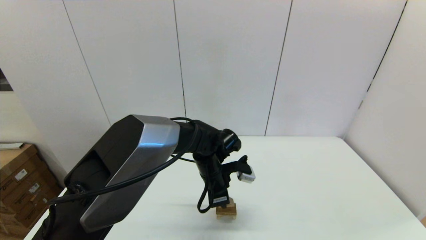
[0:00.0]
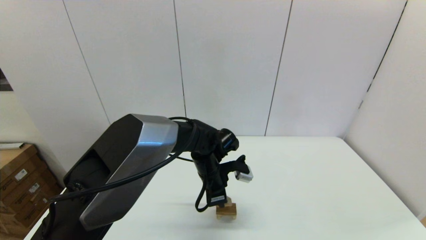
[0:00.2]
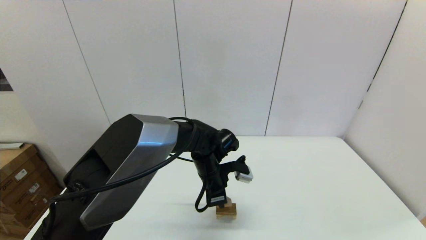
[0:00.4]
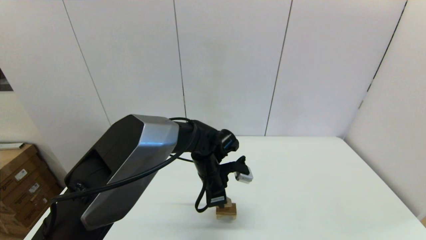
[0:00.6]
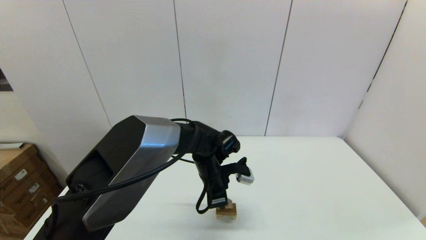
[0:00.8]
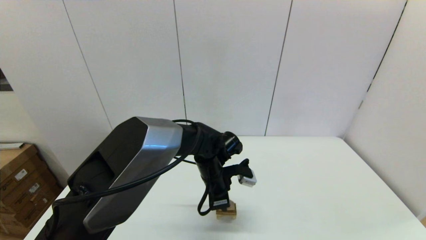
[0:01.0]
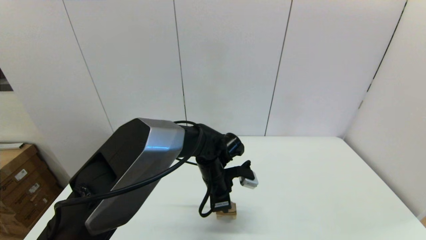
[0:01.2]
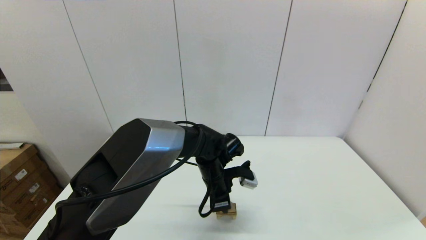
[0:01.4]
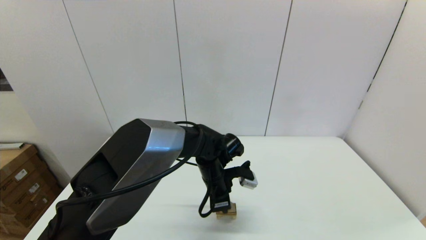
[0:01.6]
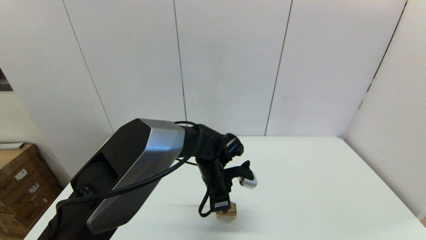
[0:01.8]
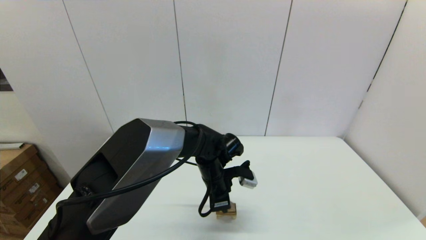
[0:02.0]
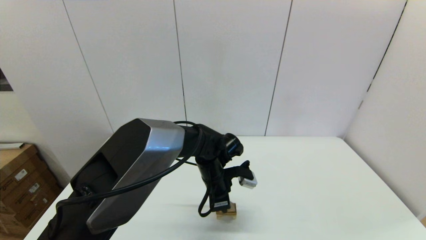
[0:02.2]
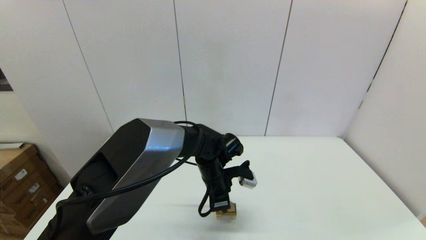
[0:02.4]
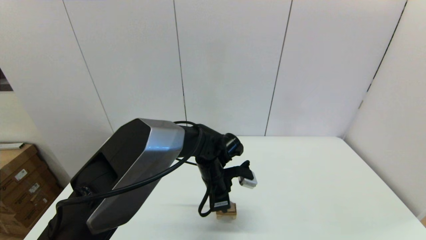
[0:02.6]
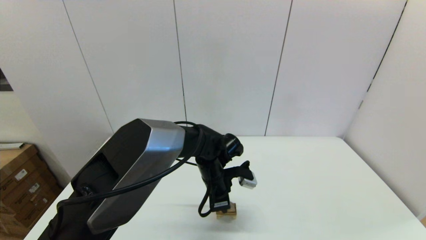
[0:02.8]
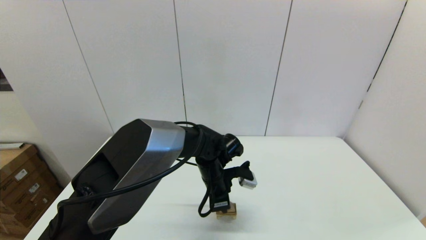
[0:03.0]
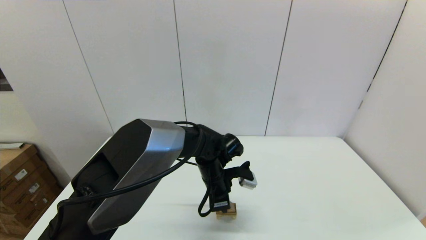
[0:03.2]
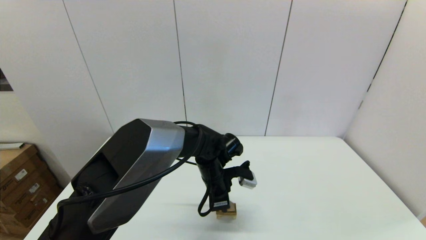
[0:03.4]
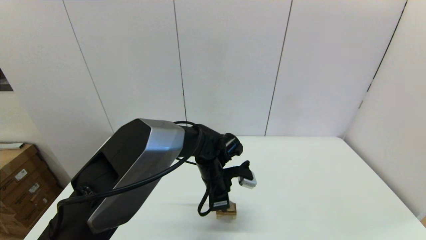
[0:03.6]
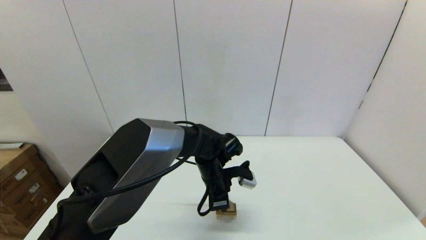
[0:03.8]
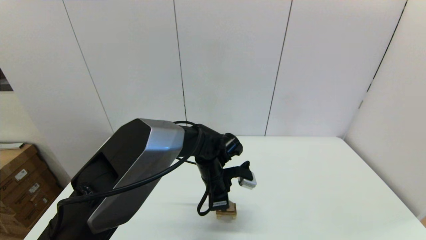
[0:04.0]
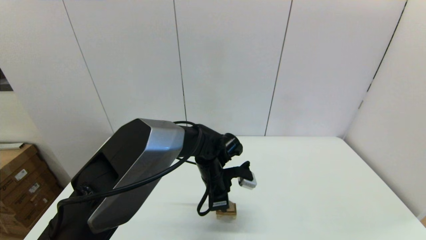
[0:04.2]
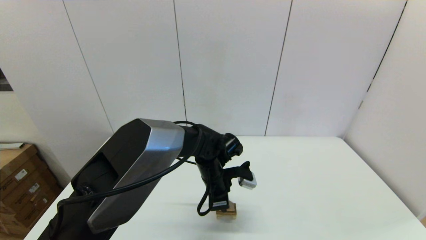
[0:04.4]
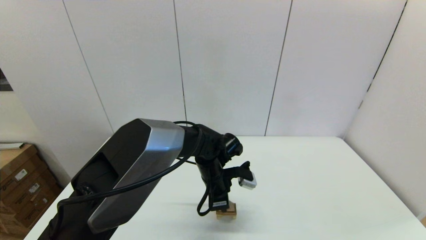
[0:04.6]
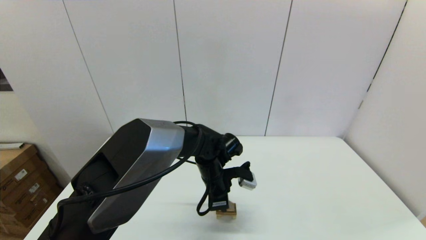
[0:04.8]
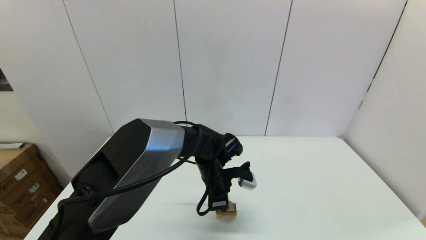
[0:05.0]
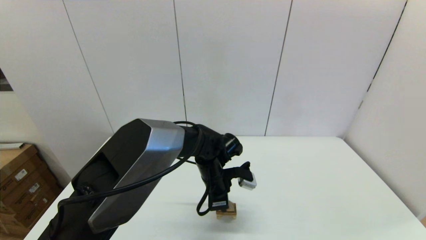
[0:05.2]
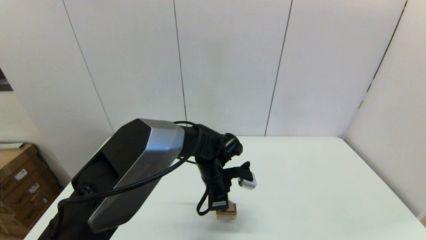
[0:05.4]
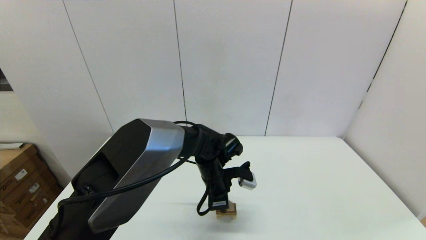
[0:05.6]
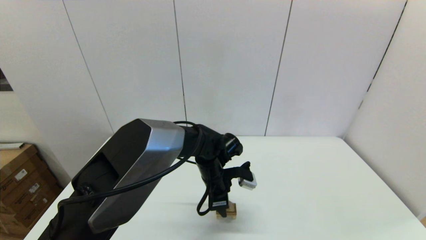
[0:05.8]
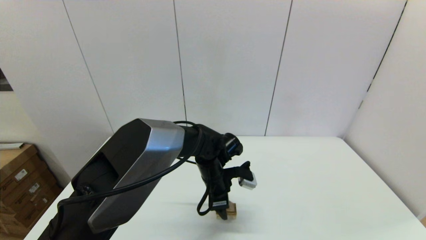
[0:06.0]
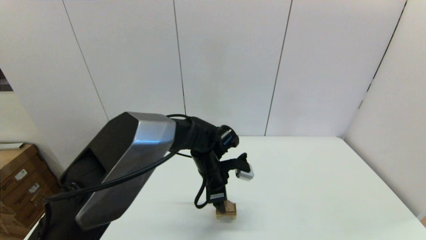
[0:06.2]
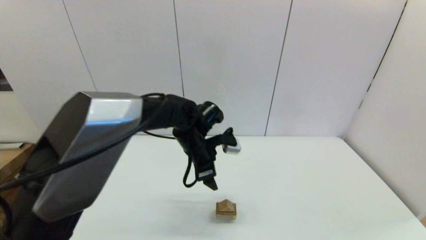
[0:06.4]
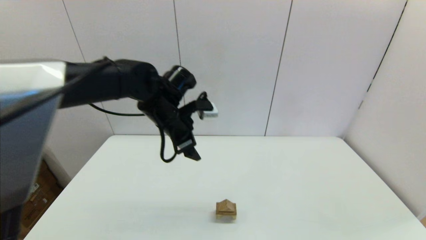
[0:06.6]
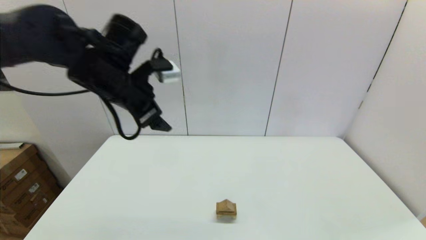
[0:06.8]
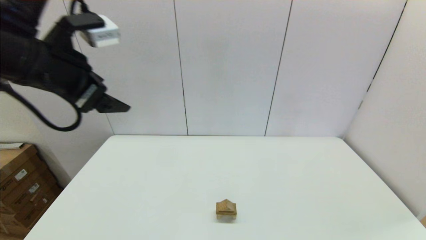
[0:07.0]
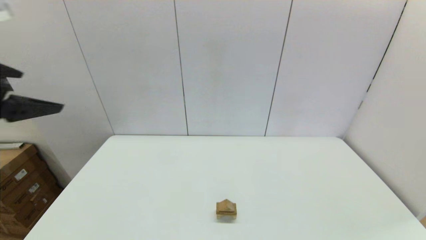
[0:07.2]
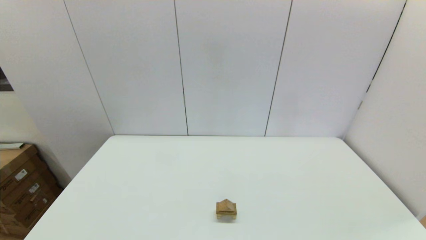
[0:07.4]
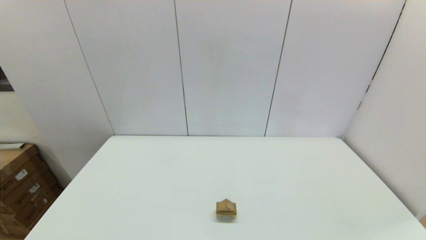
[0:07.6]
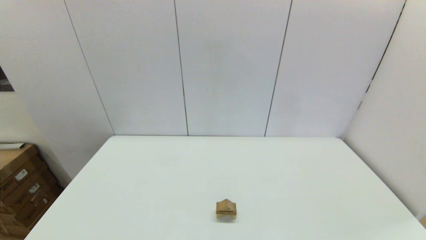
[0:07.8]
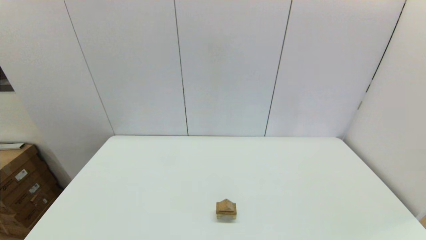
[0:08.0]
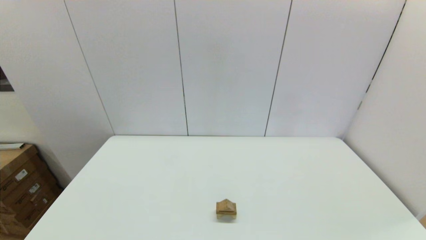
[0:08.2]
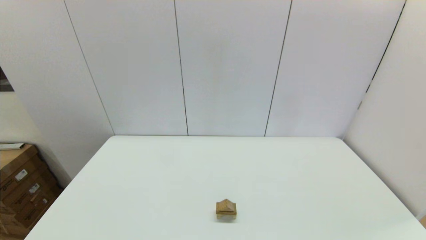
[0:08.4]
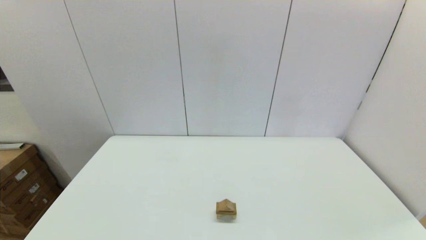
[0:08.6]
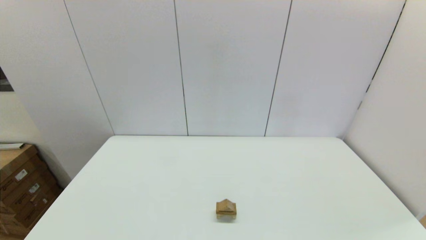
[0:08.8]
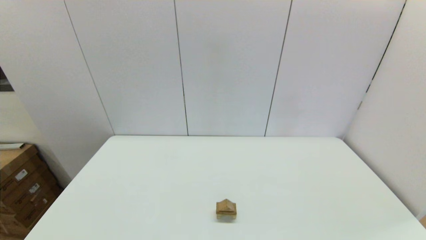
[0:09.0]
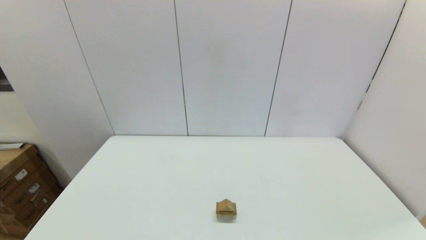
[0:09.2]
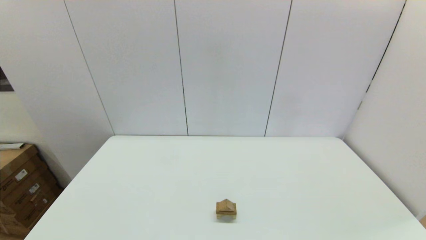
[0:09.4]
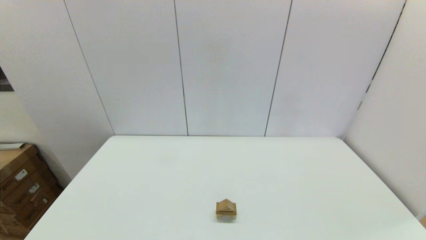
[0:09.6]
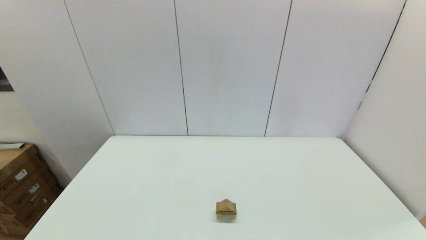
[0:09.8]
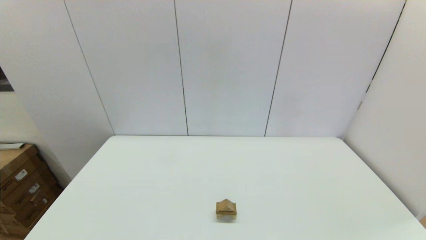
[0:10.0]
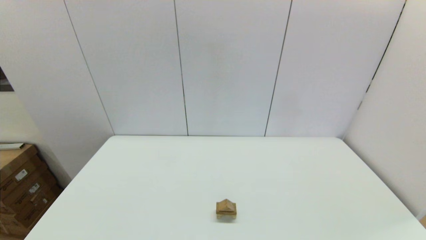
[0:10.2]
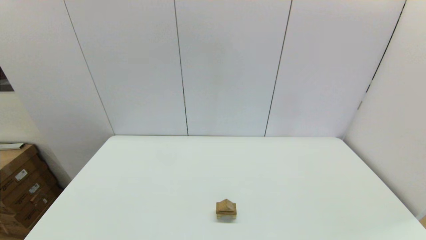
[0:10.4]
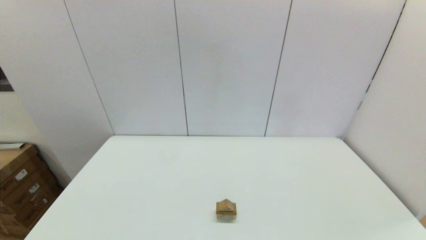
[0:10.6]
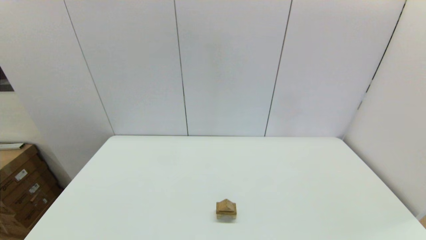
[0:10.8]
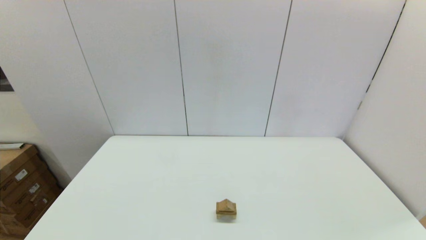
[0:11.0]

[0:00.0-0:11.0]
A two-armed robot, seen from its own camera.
Task of the whole recording: place the arched building blocks in the center of the table, set up the rectangular building blocks, and then set up the triangular building blocks.
0:00.0 to 0:03.2: The two grippers keep their place.
0:03.2 to 0:04.8: Neither gripper changes place.
0:04.8 to 0:06.2: The left gripper opens its fingers.
0:06.2 to 0:07.8: The left gripper heads backward, to the left and upward, covering about 50 cm.
0:09.4 to 0:11.0: The two grippers keep their place.
